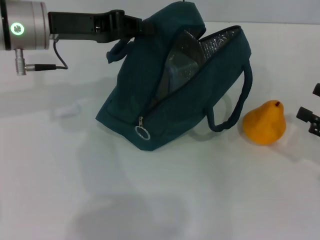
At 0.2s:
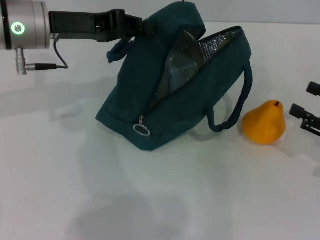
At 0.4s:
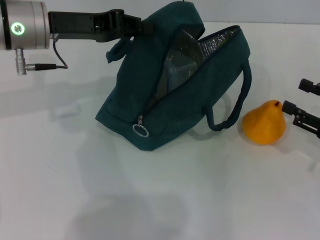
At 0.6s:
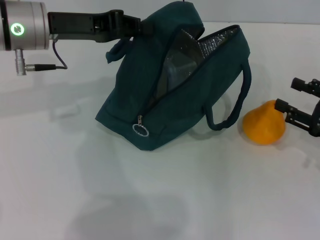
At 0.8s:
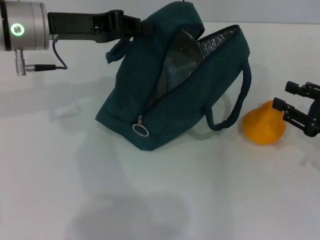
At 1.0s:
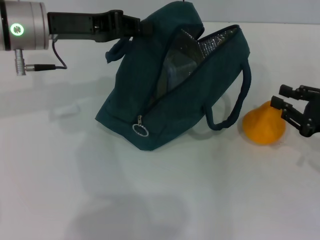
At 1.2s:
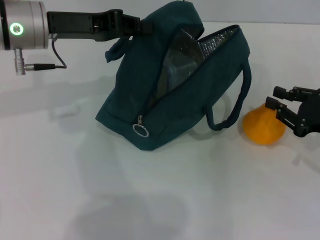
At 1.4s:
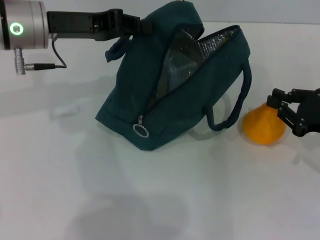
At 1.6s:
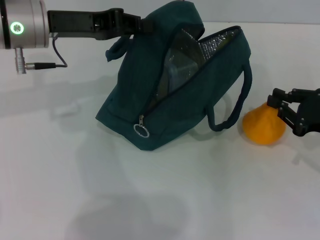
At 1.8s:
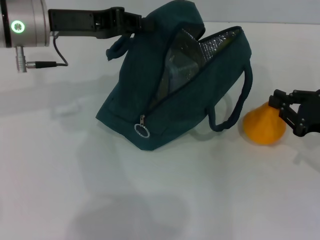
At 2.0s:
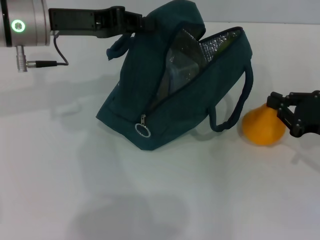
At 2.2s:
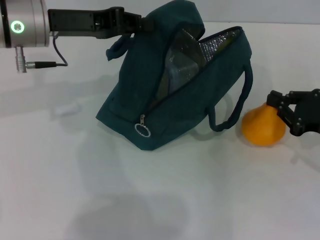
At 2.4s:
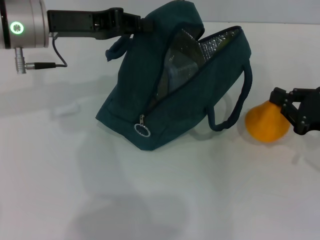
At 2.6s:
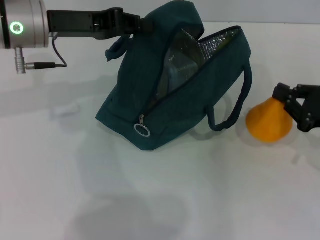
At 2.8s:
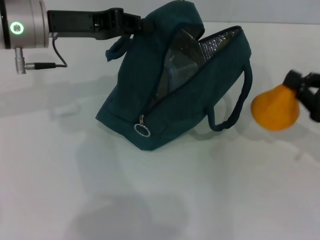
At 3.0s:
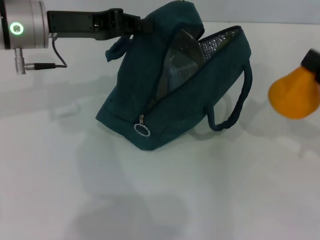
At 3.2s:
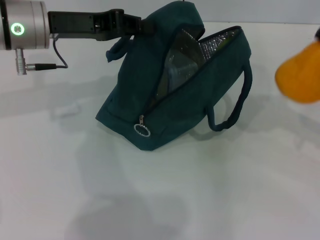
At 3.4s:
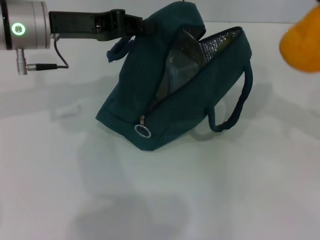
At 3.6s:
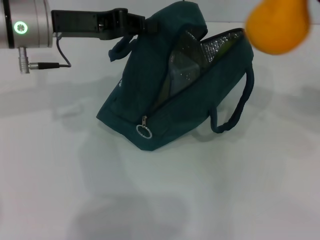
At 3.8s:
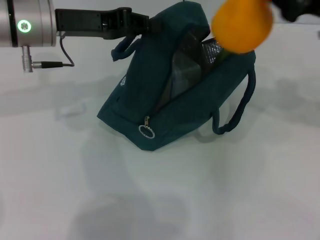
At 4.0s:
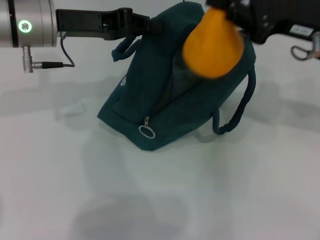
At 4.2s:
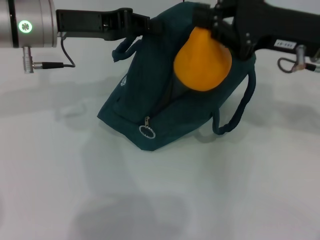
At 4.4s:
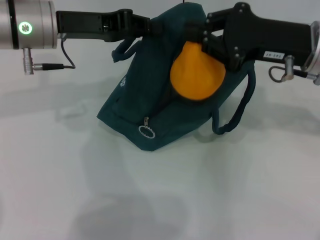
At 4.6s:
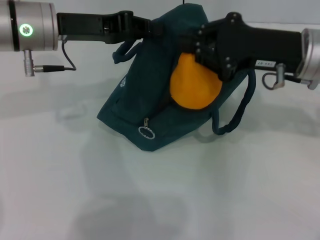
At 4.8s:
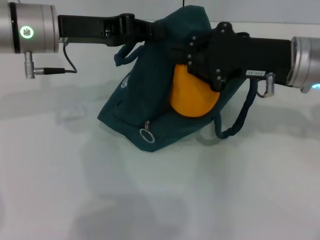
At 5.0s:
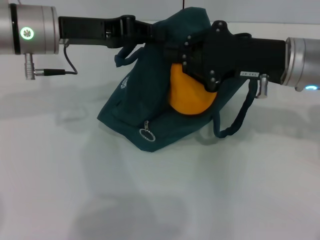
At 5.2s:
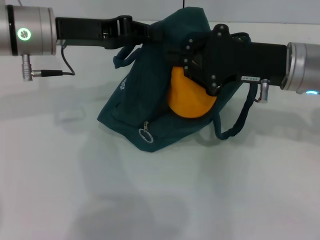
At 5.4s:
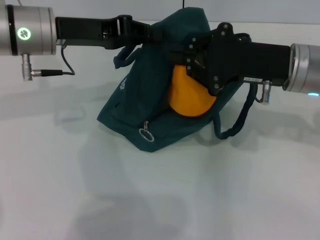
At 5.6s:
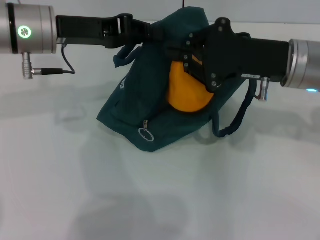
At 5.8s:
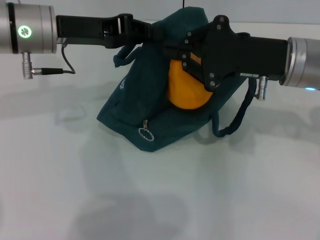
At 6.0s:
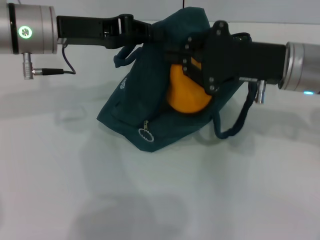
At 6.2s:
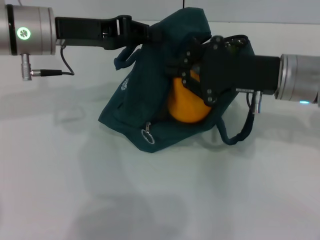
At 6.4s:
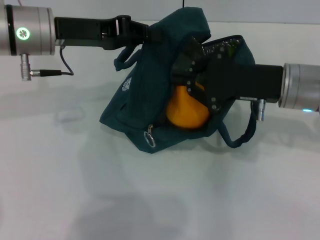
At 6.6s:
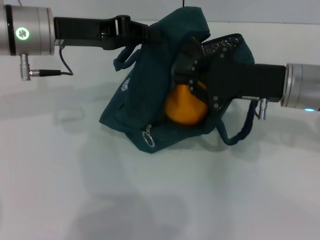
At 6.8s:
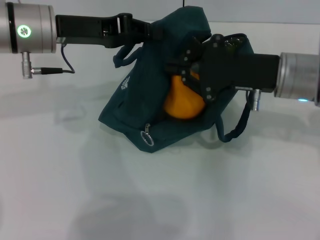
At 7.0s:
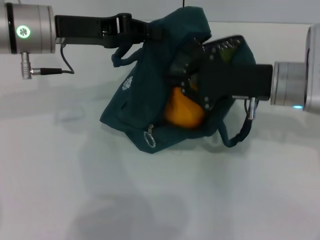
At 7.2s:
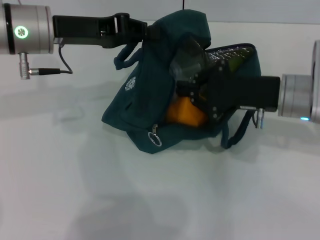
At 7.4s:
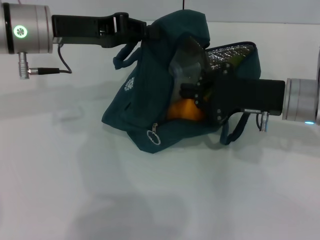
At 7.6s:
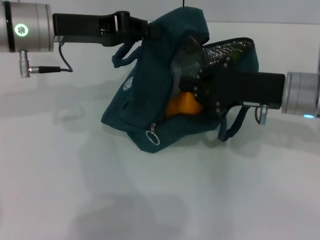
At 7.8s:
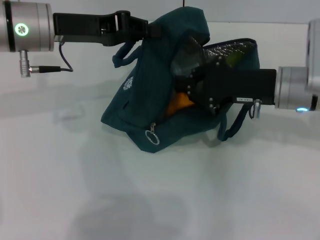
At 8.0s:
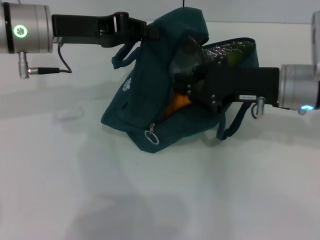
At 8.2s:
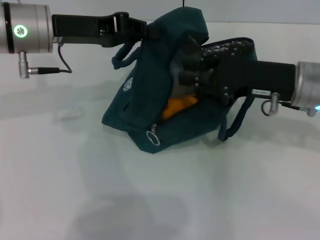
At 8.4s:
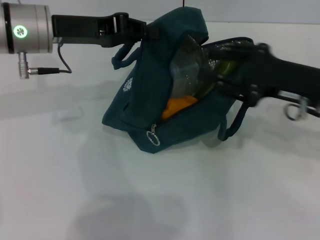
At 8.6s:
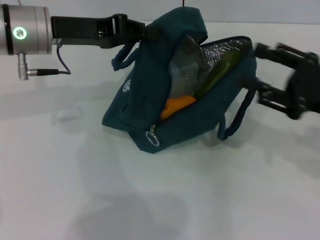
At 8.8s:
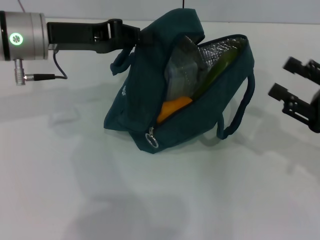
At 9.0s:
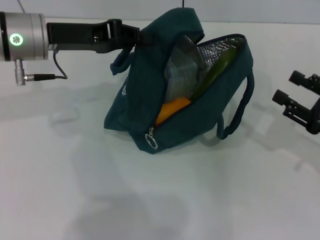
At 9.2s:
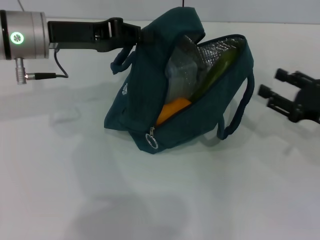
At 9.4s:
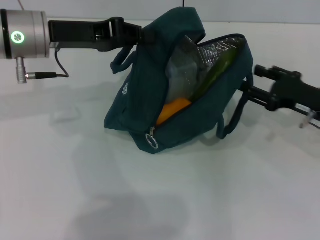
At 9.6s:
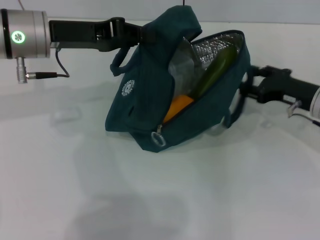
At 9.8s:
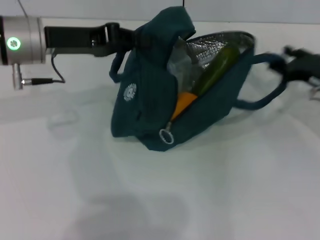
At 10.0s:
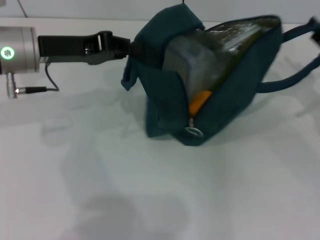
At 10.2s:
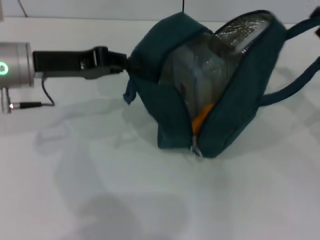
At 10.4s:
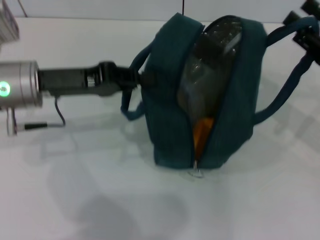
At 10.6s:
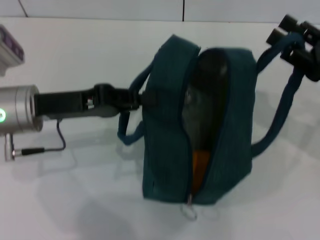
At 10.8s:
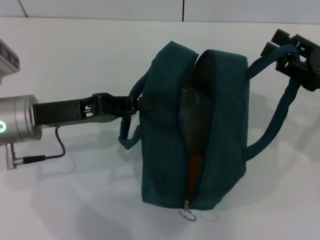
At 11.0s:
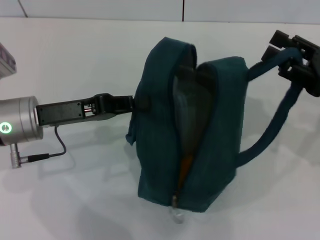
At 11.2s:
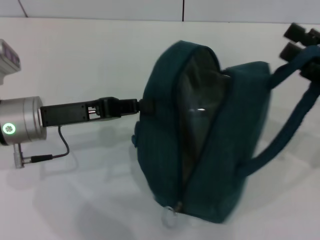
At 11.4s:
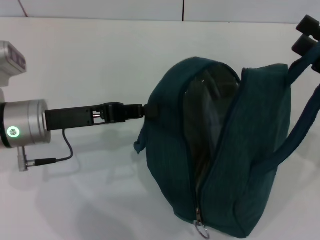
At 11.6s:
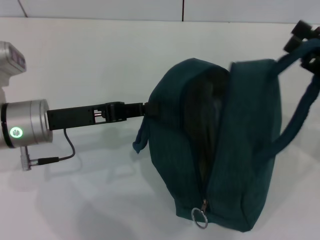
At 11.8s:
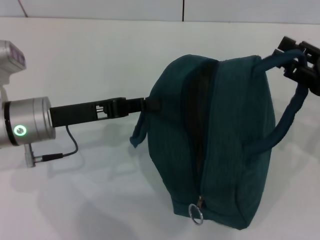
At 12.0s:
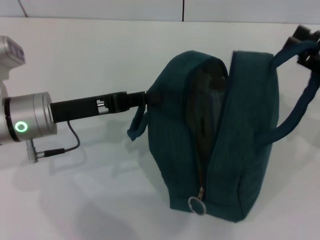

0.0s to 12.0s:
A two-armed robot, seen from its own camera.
Step, 0.0s to 2.0s: Grab the pear with your right hand.
0.0s to 1.6s: The right gripper changes place by roughly 5 cm, and closes up.
1.6s to 3.0s: The right gripper moves about 5 cm.
3.0s to 4.4s: The right gripper is displaced to the left, upward and forward by approximately 15 cm.
6.0s to 7.6s: The grippers make only small movements.
7.6s to 9.0s: The right gripper goes about 15 cm to the right, backward and downward, and opens.
9.0s to 10.4s: The left gripper ends up some 5 cm from where it was.

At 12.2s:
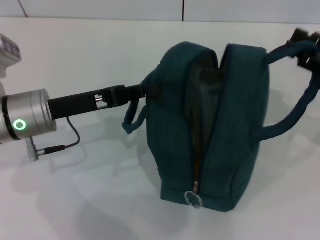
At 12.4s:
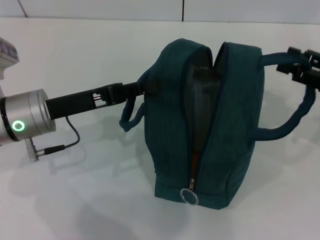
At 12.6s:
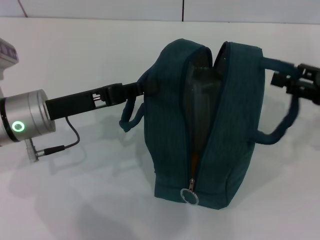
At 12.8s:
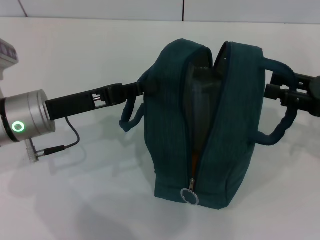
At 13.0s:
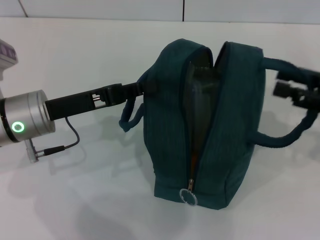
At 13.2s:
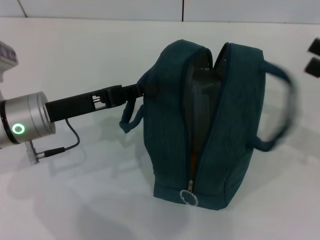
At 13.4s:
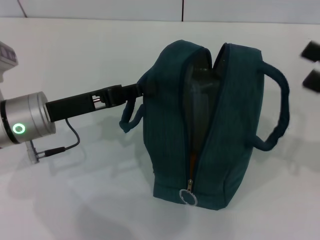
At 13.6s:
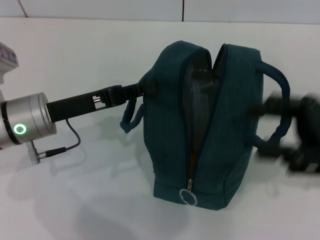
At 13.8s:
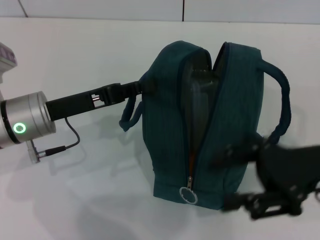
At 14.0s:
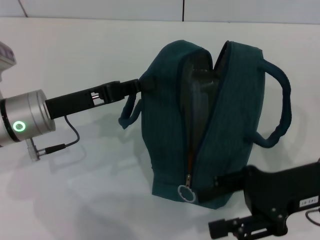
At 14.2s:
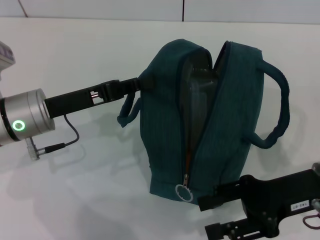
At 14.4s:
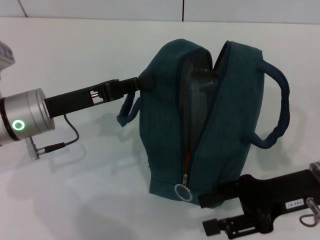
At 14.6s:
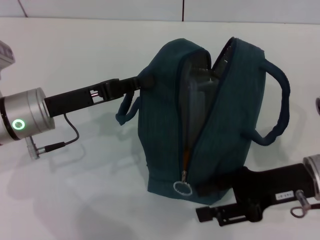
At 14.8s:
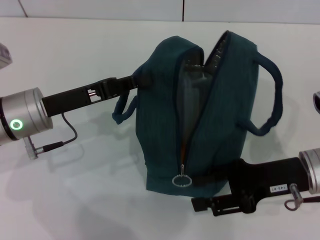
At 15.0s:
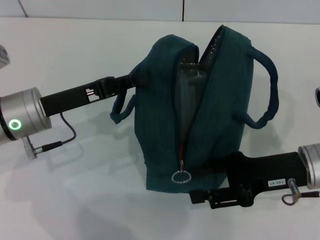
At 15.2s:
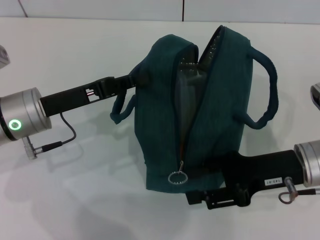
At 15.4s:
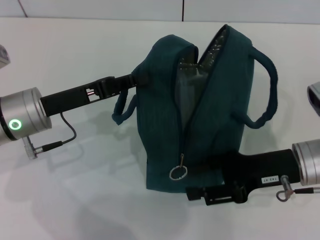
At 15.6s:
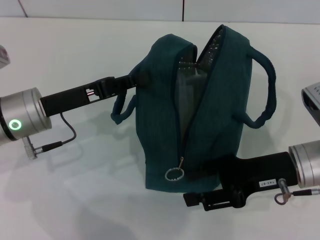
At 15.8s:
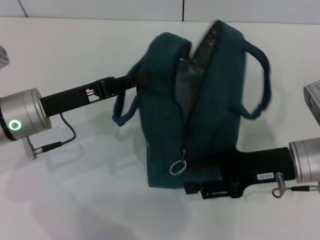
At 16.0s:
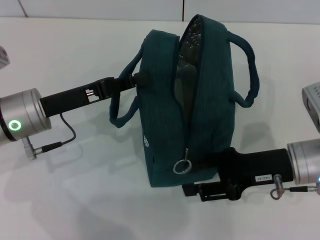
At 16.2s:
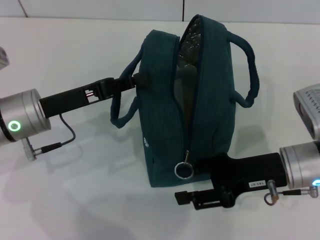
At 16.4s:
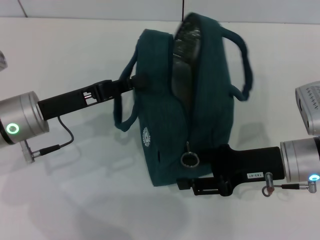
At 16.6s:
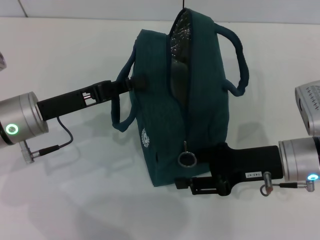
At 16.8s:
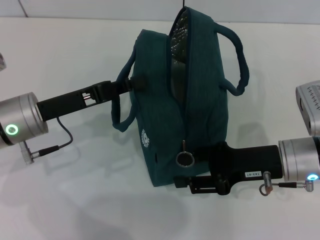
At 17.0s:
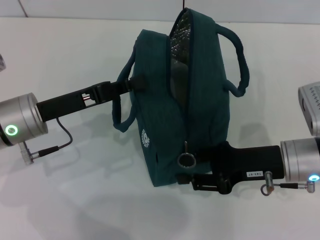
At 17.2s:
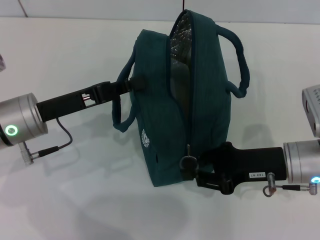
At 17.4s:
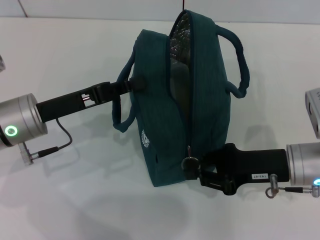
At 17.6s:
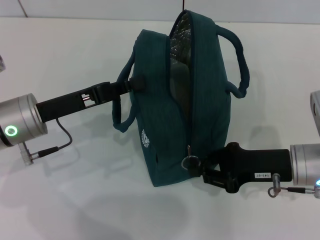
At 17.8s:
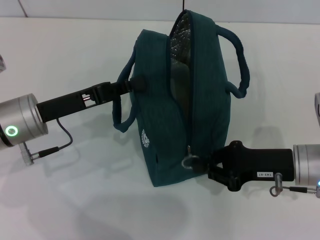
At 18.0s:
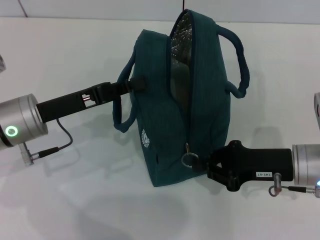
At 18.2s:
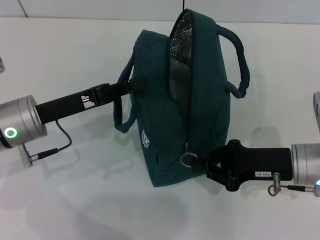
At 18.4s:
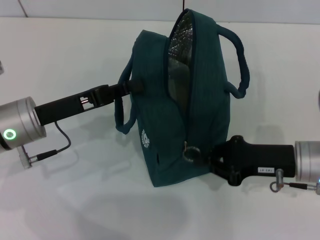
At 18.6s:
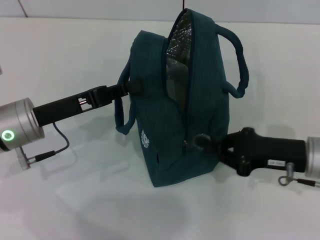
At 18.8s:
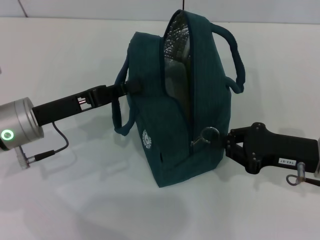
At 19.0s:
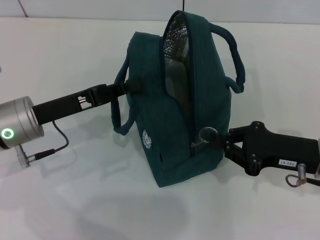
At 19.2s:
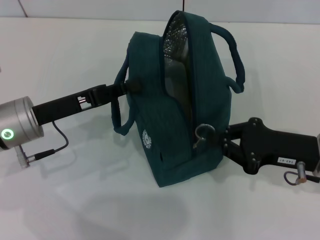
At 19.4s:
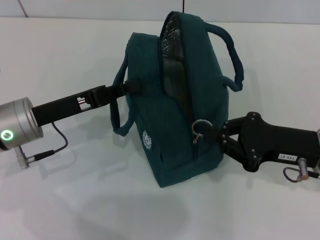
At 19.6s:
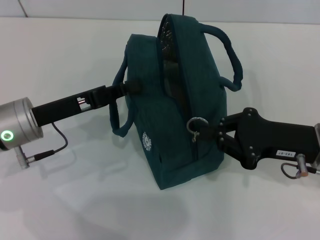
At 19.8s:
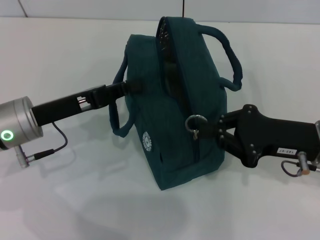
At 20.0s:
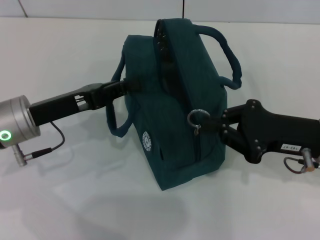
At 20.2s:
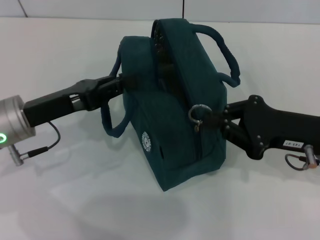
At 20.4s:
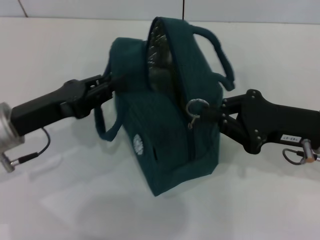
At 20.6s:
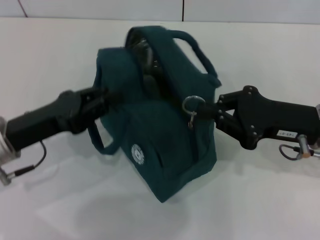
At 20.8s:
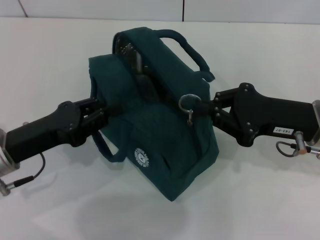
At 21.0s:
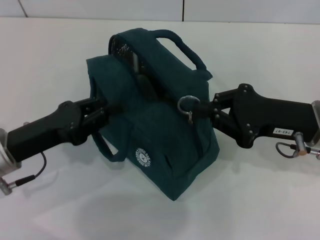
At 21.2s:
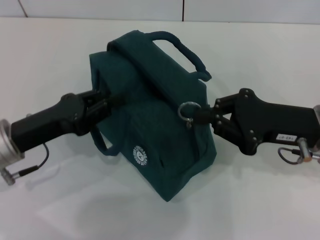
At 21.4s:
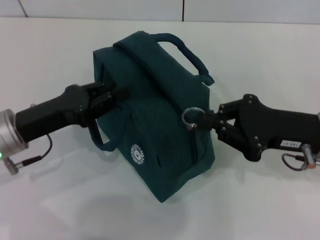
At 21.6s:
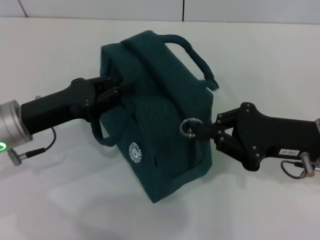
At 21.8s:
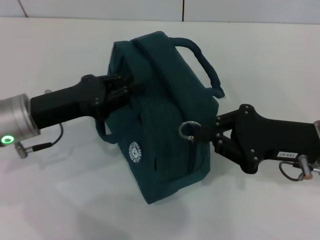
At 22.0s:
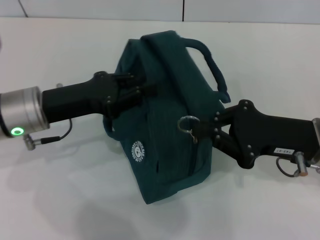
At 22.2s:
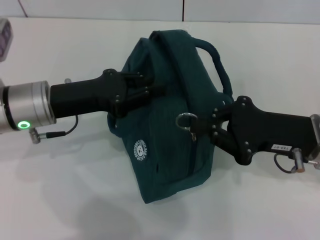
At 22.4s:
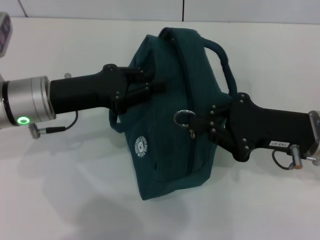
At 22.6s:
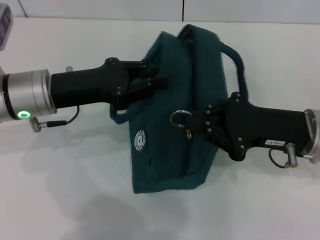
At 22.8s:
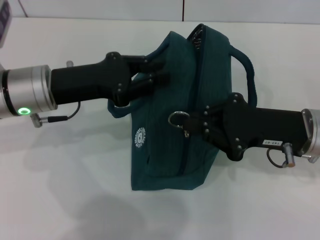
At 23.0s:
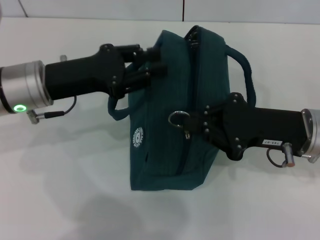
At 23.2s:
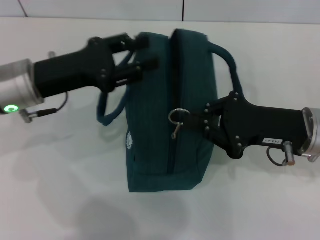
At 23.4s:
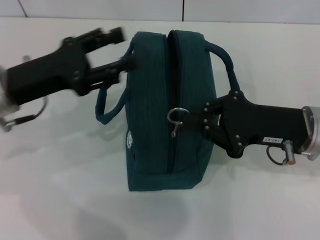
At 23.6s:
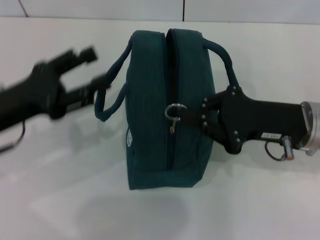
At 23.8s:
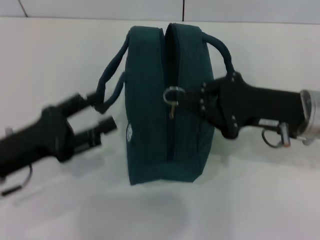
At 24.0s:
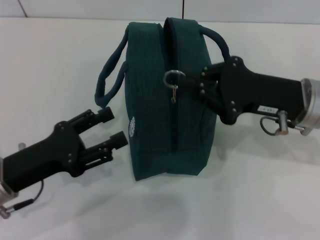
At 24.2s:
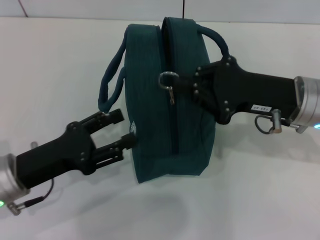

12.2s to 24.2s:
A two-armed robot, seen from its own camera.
Step, 13.6s to 23.2s: Hold the lunch bag with your left hand.
12.2s to 13.8s: The right gripper moves to the left and backward, about 10 cm.
13.8s to 15.2s: The right gripper shifts by approximately 5 cm.
16.6s to 18.2s: The right gripper closes its fingers.
18.2s to 19.8s: The grippers make only small movements.
21.2s to 22.6s: The left gripper travels forward by roughly 5 cm.
22.6s to 24.2s: The left gripper shifts roughly 10 cm backward and downward, and opens its fingers.
